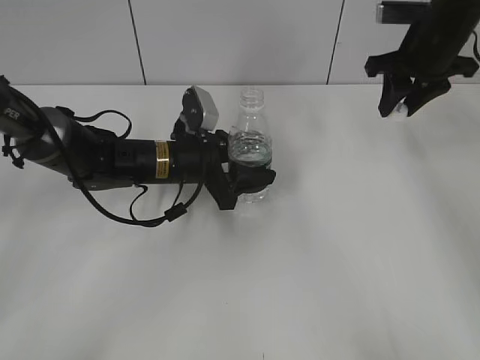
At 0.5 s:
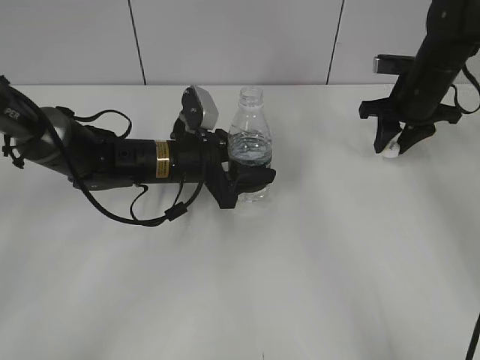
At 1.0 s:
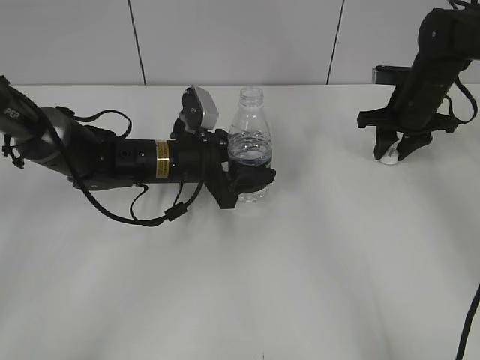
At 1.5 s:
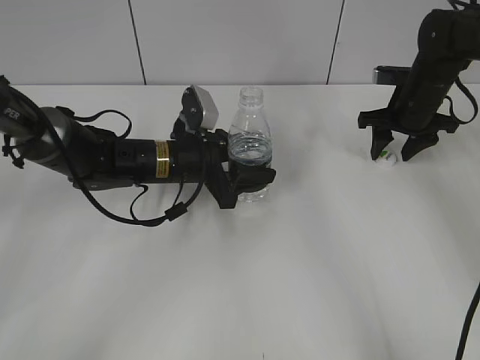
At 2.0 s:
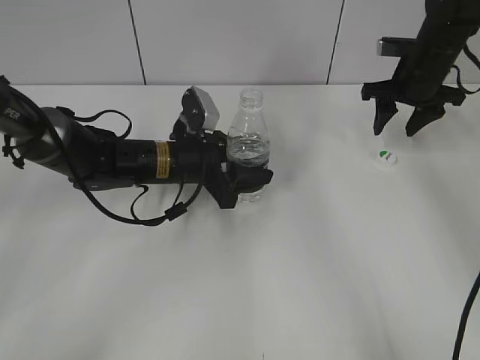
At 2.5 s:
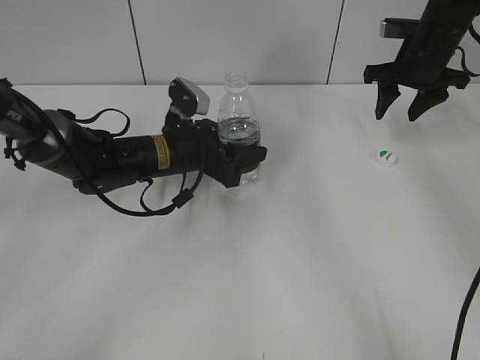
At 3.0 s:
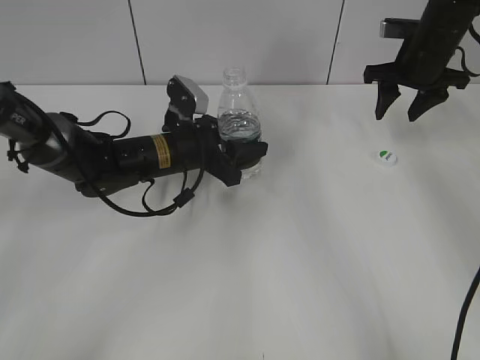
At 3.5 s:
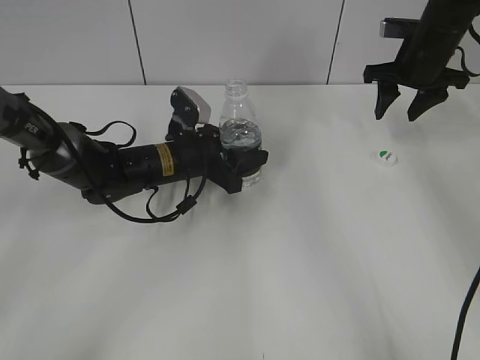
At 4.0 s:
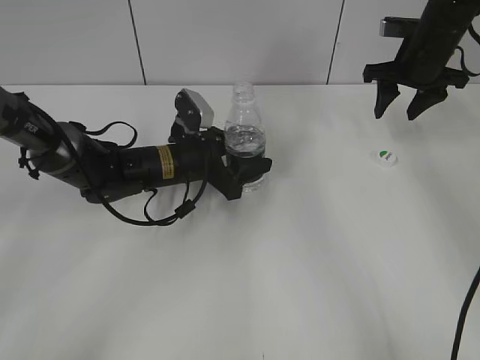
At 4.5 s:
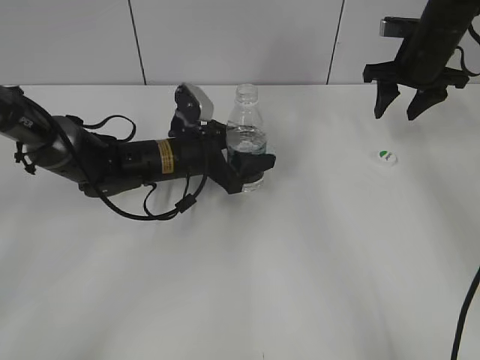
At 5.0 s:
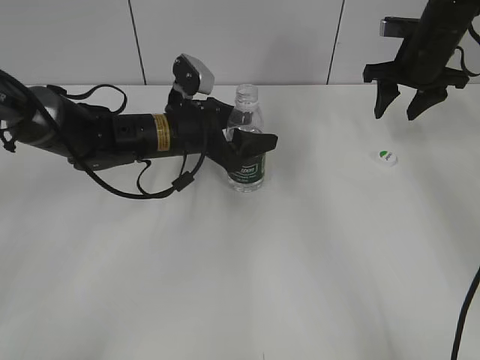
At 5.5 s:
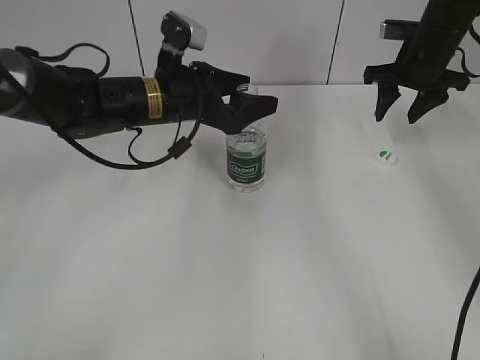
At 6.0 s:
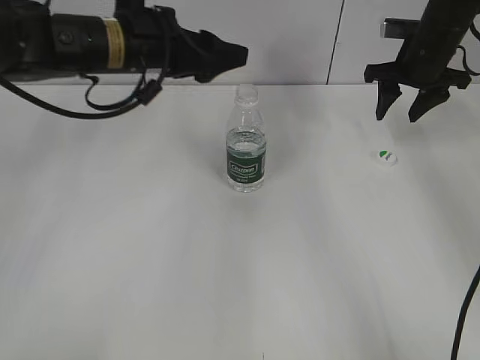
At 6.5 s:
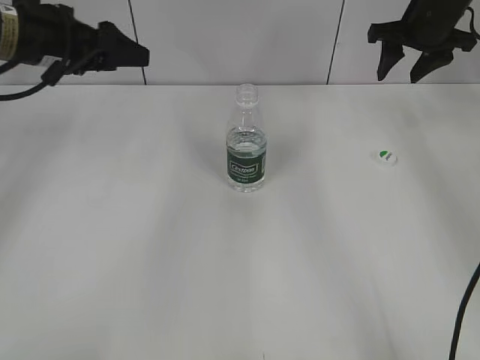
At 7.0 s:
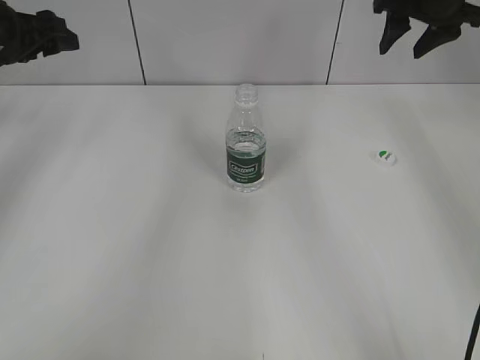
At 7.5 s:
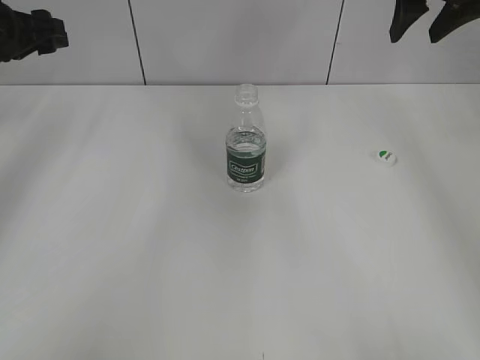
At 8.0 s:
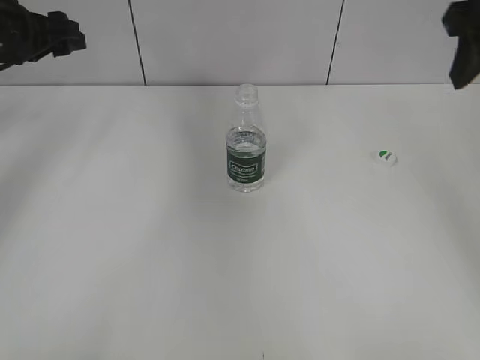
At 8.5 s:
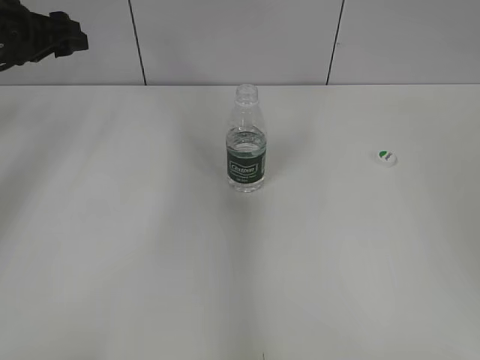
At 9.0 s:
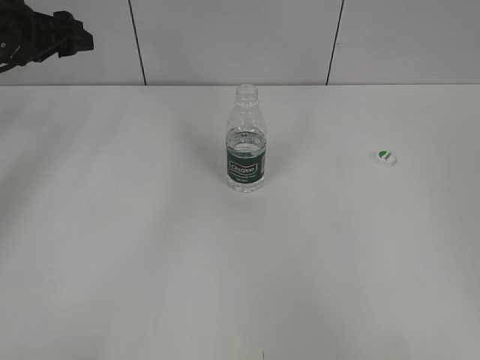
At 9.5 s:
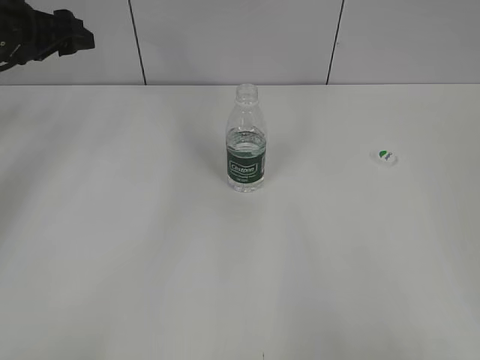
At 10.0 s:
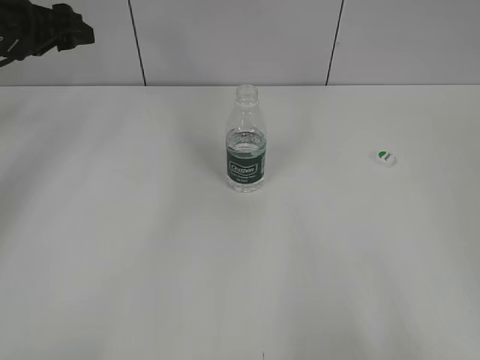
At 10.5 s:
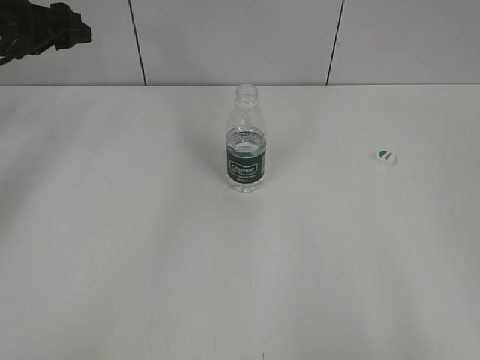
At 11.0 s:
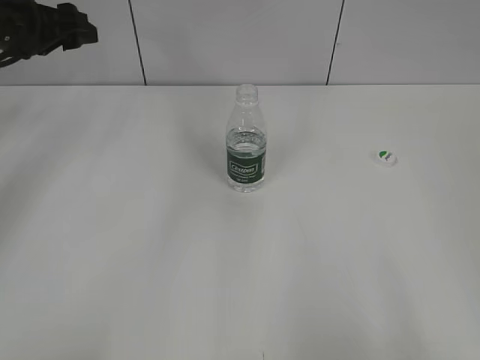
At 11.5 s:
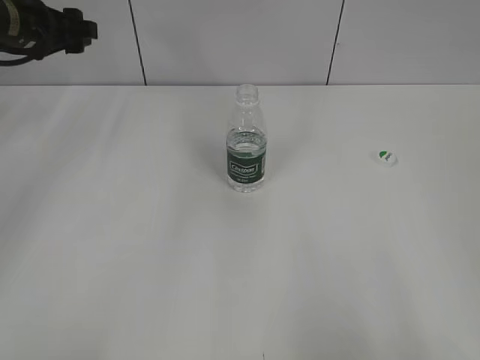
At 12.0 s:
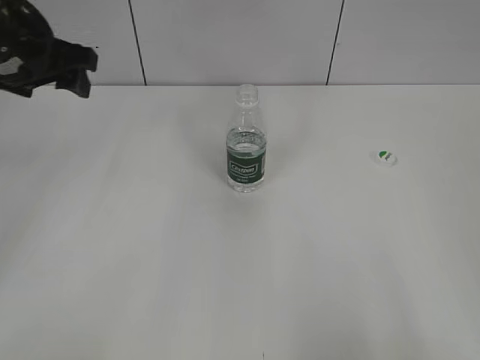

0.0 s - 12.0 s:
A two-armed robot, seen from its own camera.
Step, 0.0 s - 1.5 s: Place the bottle cap on the table with the right gripper.
Step, 2.0 s - 4.0 s: Place the bottle on the table with the left gripper.
0.0 s - 2.0 s: The right gripper shifts about 5 cm downward, and opens up.
2.0 s - 4.0 s: The grippers move only a little.
4.0 s - 6.0 s: The left gripper heads upward, covering some 15 cm.
6.0 s - 8.0 s: The right gripper heads backward and upward, covering some 25 cm, while the left gripper heads to the left, covering roughly 15 cm.
8.0 s - 10.0 s: The right gripper travels backward by roughly 30 cm.
10.0 s - 12.0 s: The left gripper goes roughly 5 cm backward.
